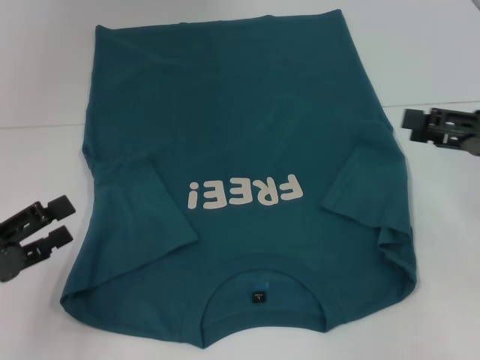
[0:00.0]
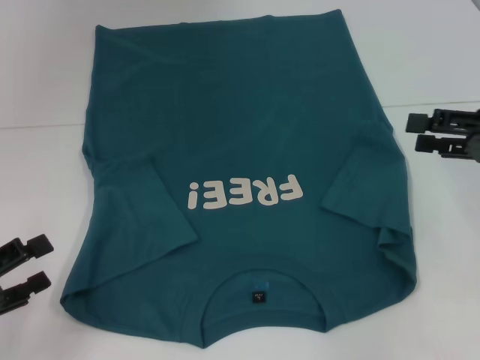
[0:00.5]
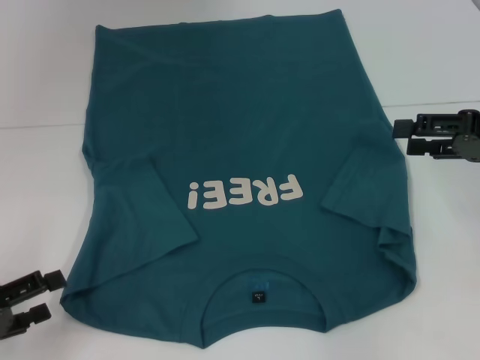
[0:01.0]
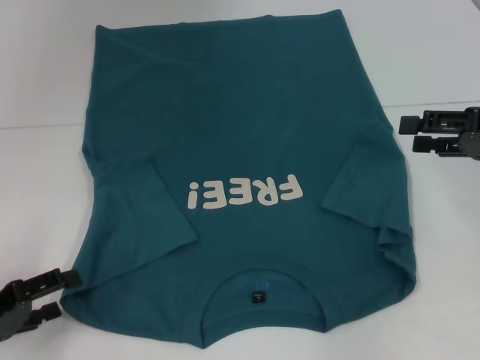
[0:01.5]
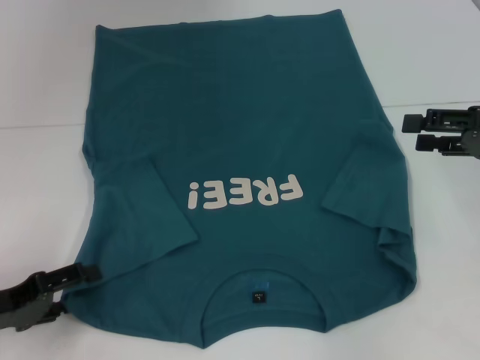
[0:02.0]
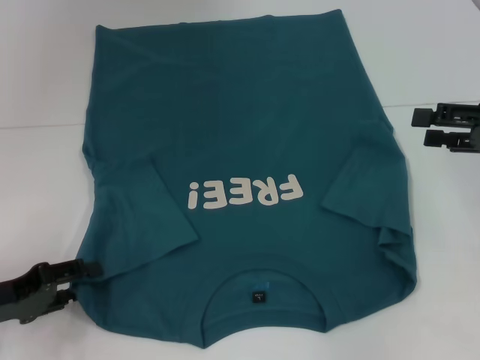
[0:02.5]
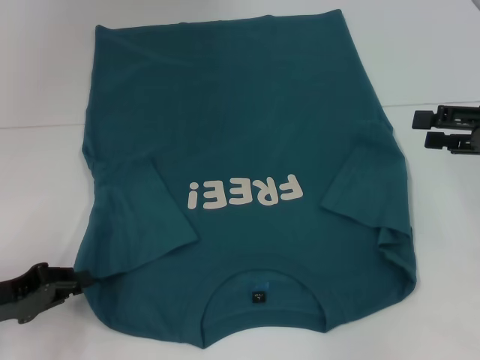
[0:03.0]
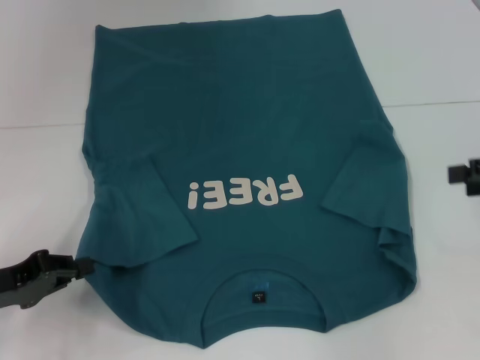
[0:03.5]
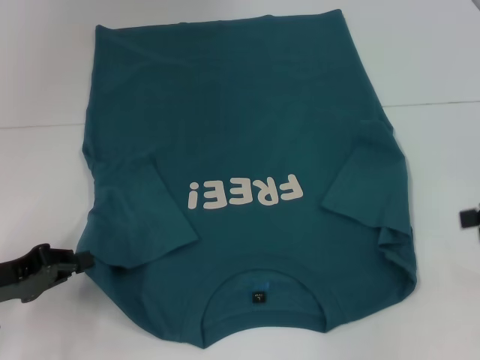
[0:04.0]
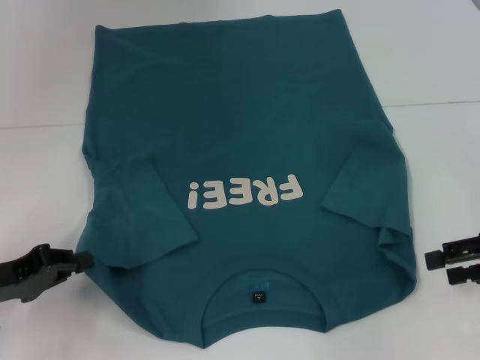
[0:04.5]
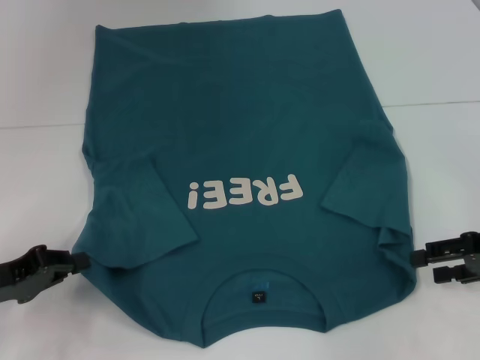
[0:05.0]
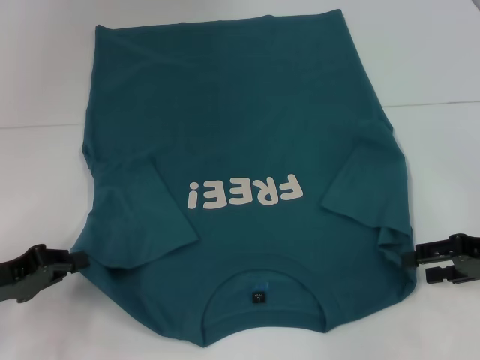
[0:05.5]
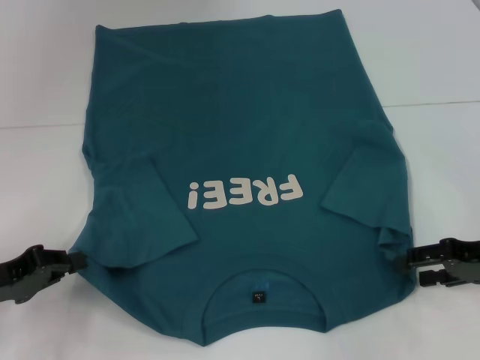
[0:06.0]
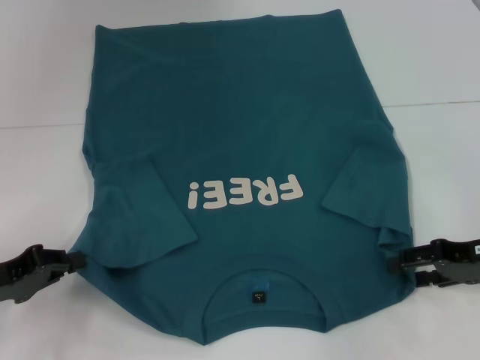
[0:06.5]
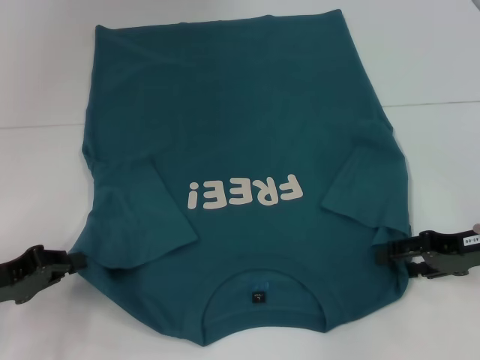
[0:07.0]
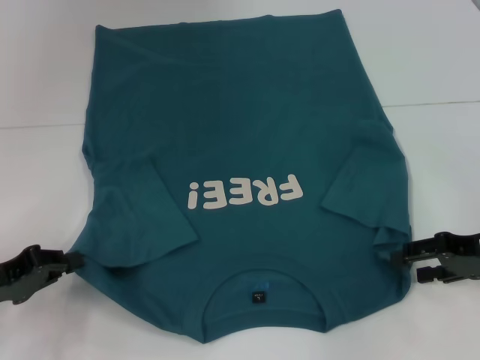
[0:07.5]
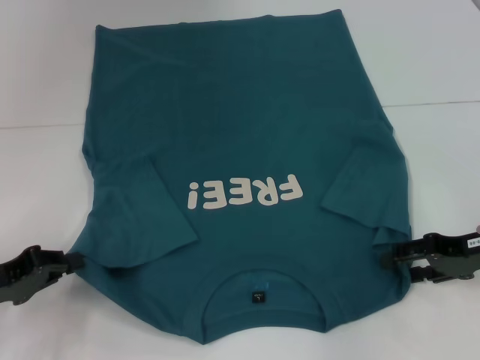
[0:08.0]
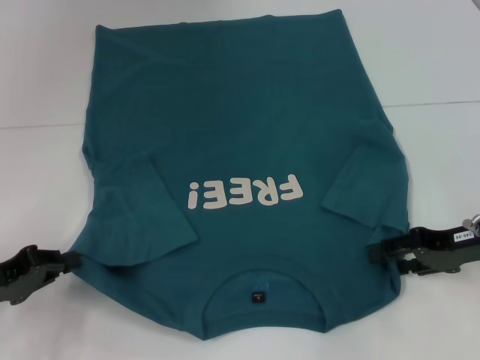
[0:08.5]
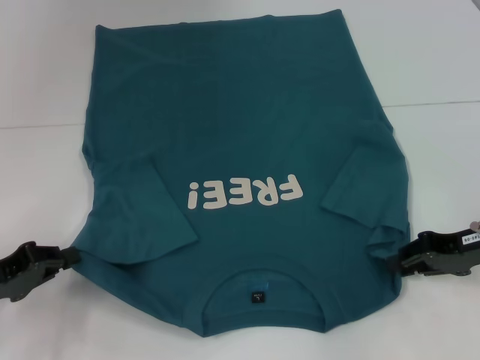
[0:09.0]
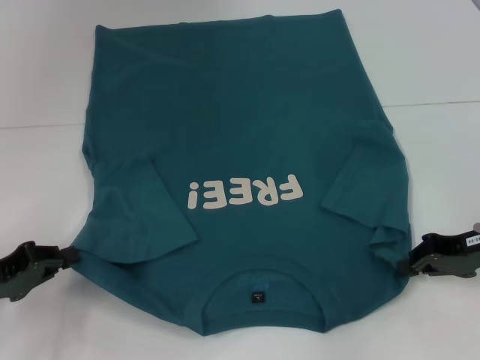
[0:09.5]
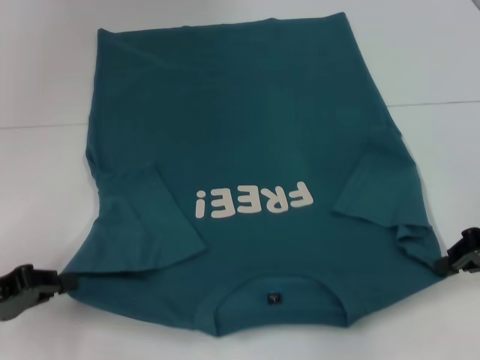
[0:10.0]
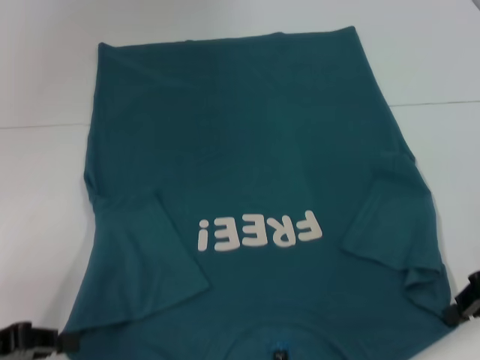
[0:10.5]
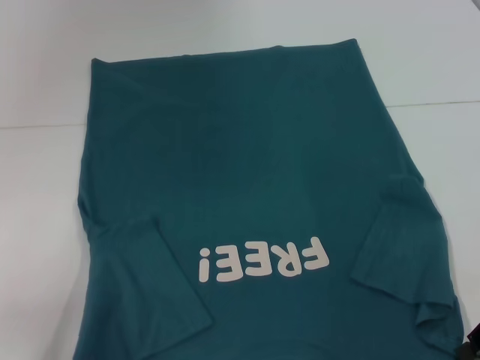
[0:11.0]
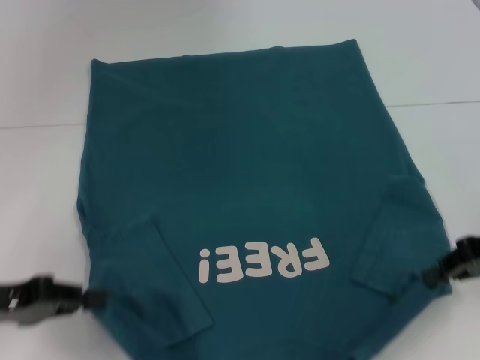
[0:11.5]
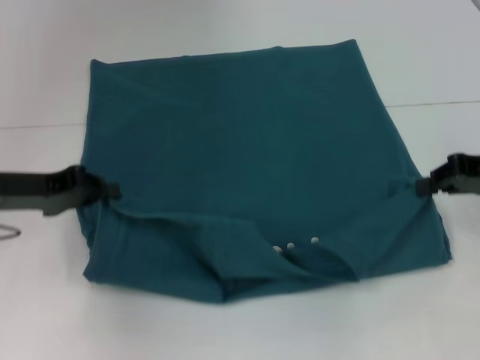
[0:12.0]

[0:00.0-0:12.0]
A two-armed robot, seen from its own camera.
Step, 0:00.0 to 0:03.0: Grab the bottom left corner with your left hand.
Step, 0:03.5 to 0:09.0: Grab the bottom right corner with your right hand.
0:02.0 to 0:04.0: The left gripper closes; the right gripper ends up roughly 5 cm from where it was.
0:04.0 to 0:06.0: The right gripper shifts approximately 10 cm downward and to the left.
0:06.0 to 0:08.0: There are only small adjustments of the grippers.
0:08.0 to 0:10.0: The right gripper closes up.
0:10.0 to 0:12.0: The left gripper moves forward and upward, roughly 10 cm.

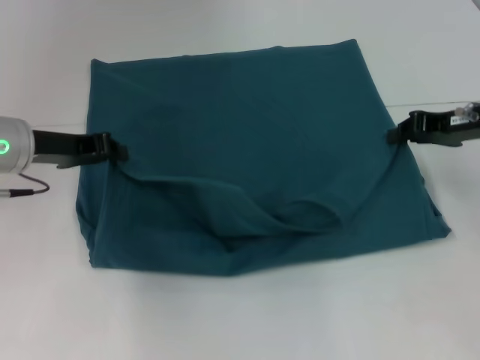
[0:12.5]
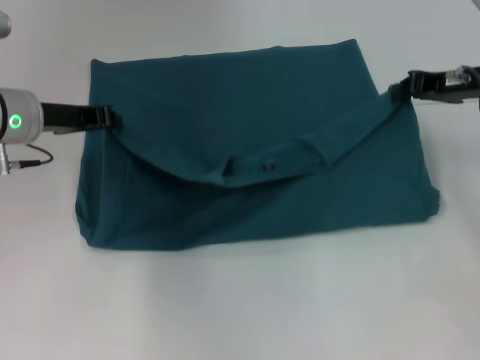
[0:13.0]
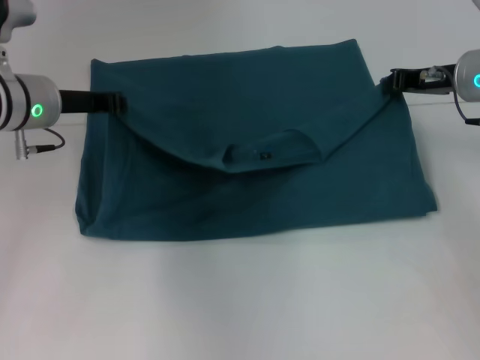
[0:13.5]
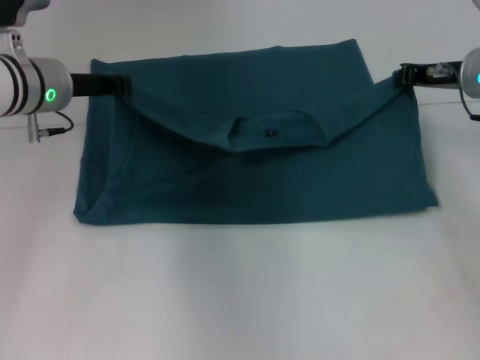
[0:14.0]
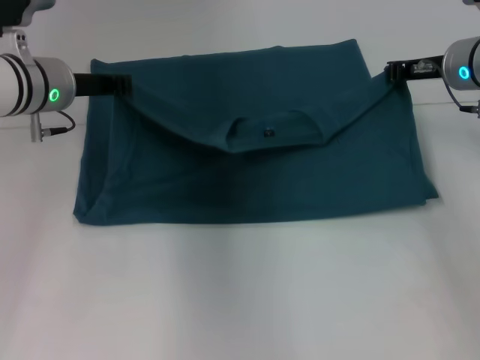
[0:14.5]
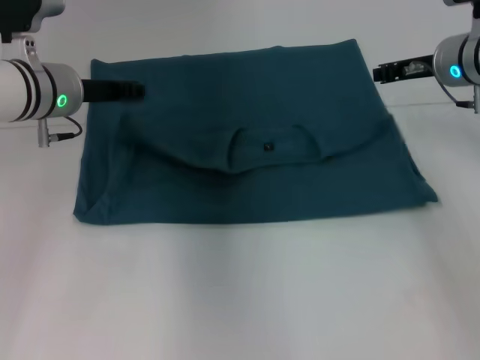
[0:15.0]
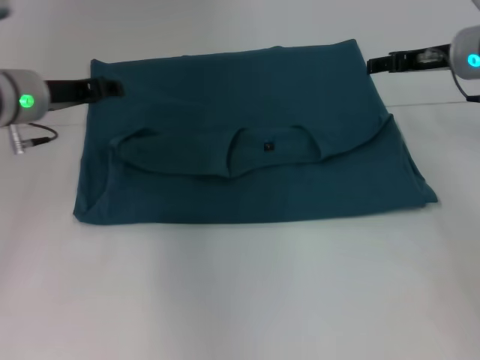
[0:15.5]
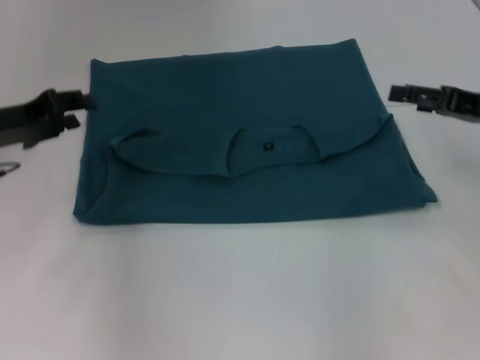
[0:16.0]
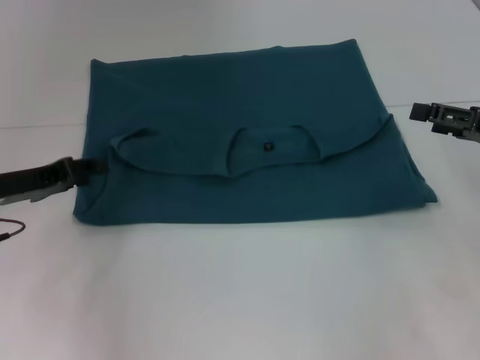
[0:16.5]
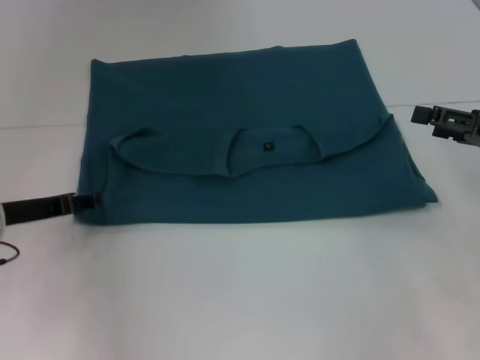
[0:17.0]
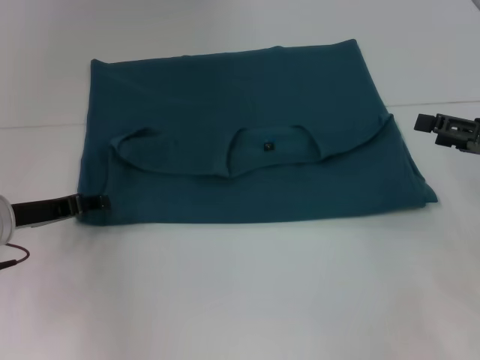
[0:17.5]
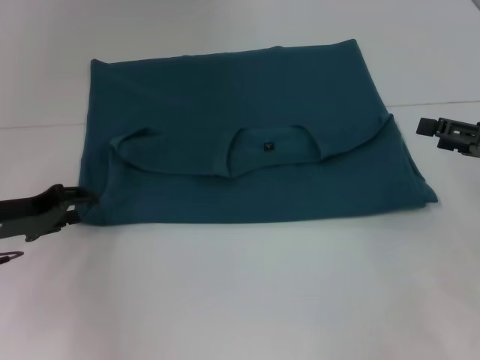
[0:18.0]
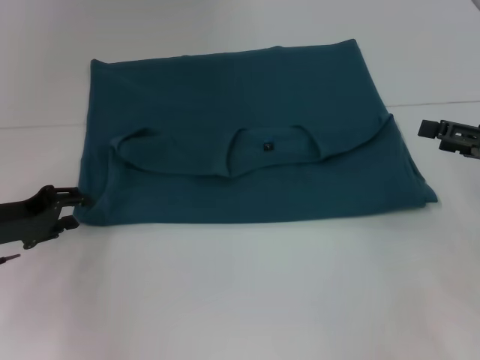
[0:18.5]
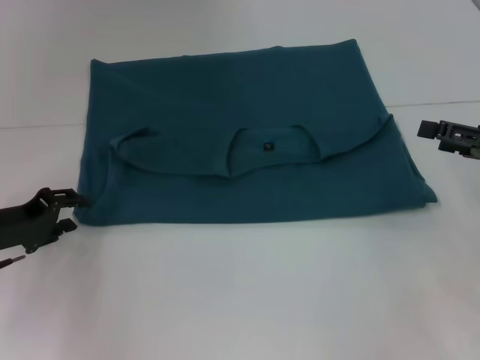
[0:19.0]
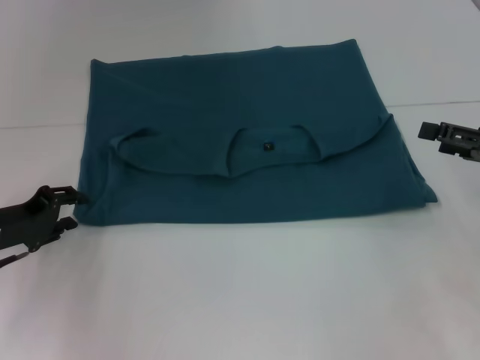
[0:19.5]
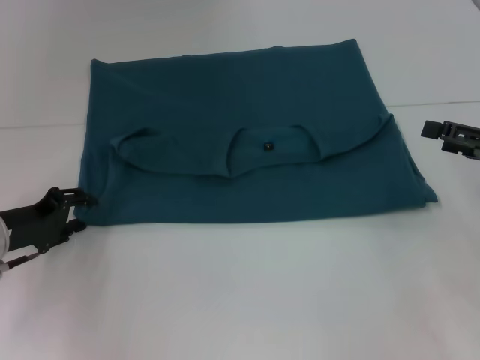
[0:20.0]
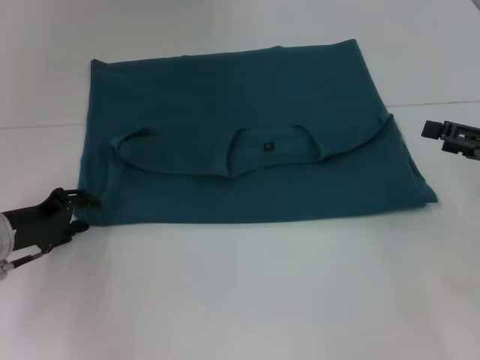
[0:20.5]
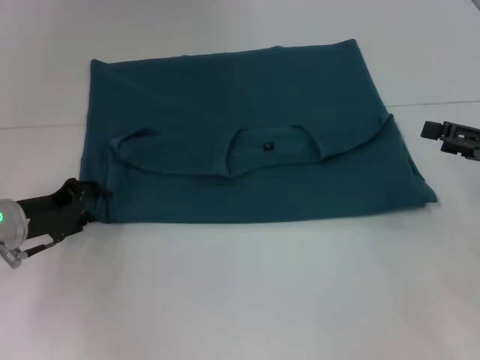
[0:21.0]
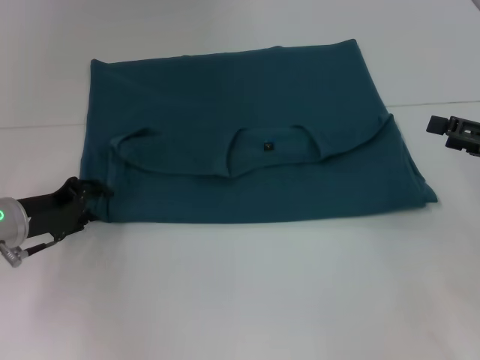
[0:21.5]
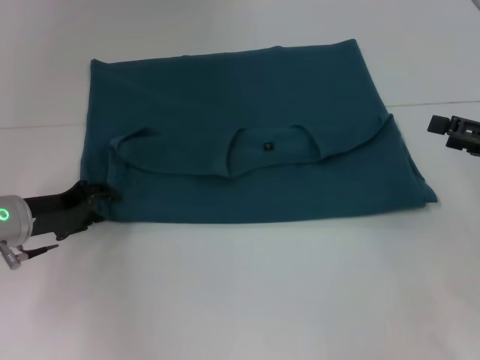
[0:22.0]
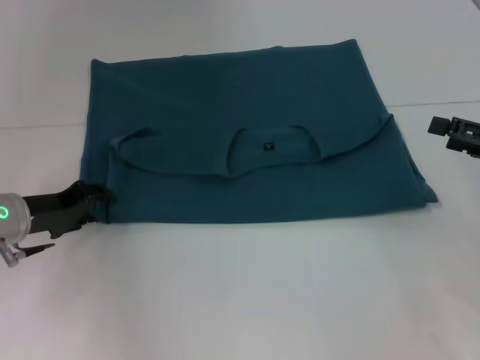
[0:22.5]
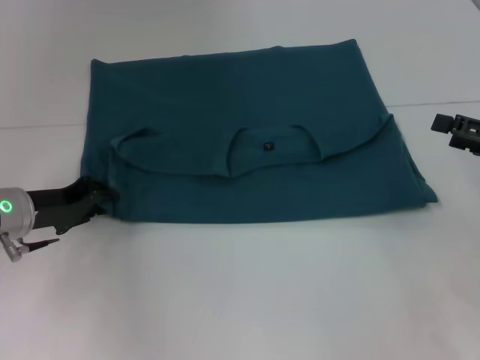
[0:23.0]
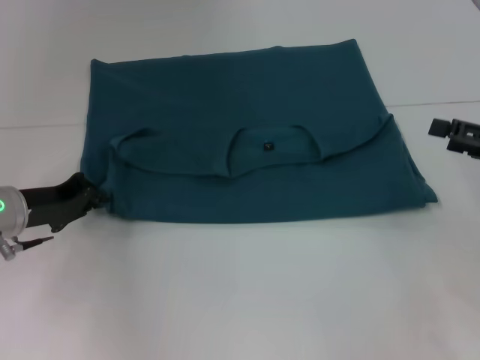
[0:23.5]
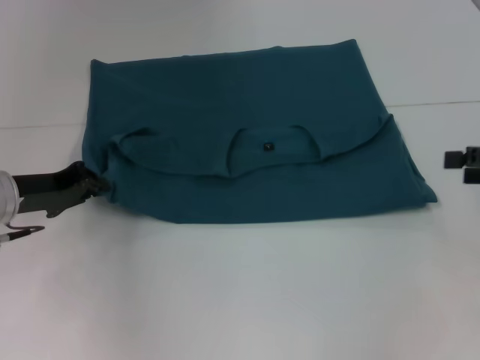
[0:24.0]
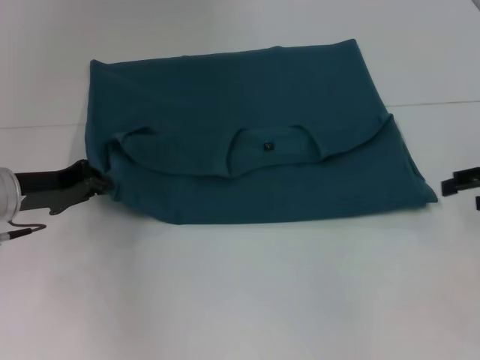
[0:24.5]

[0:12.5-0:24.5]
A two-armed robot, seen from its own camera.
Step, 0:12.5 to 0:15.0: Fold the clothes to the left.
Step, 0:12.5 to 0:15.0: Fold the clothes to the right.
0:12.5 to 0:14.5: The two grippers go some 5 cm forward.
0:14.5 to 0:16.5: The left gripper heads backward, to the left and downward, covering roughly 15 cm, and opens its fingers, while the right gripper heads backward and to the right, covering roughly 15 cm, and opens up.
0:18.5 to 0:22.5: The grippers stay close to where they were, moving slightly.
0:22.5 to 0:24.5: The left gripper closes its fingers.

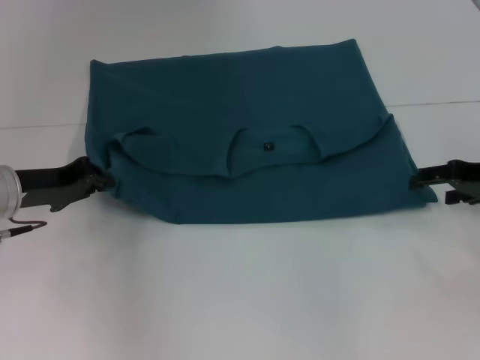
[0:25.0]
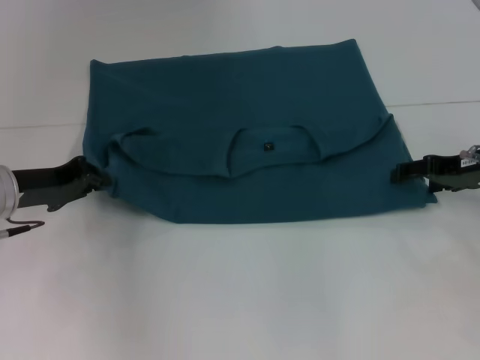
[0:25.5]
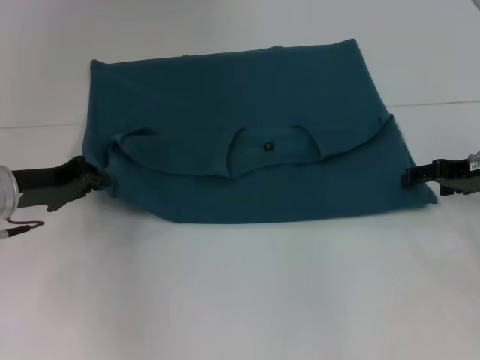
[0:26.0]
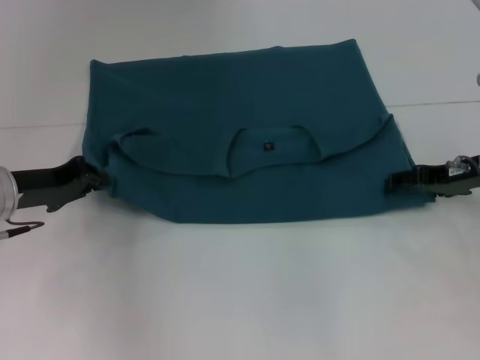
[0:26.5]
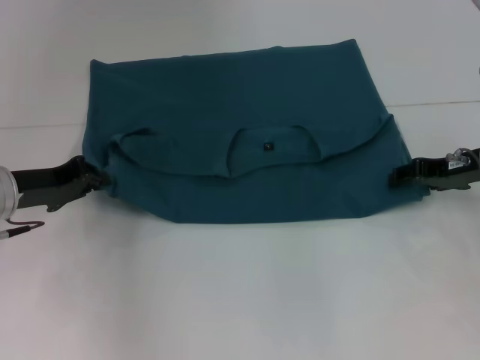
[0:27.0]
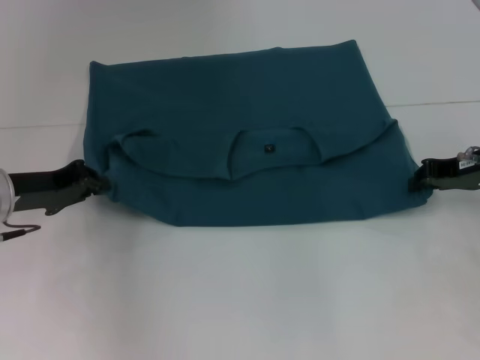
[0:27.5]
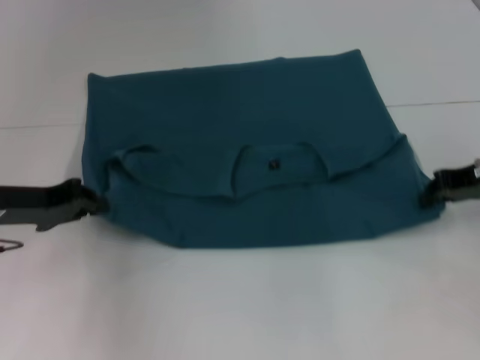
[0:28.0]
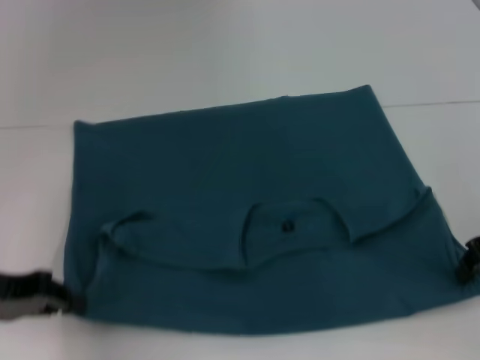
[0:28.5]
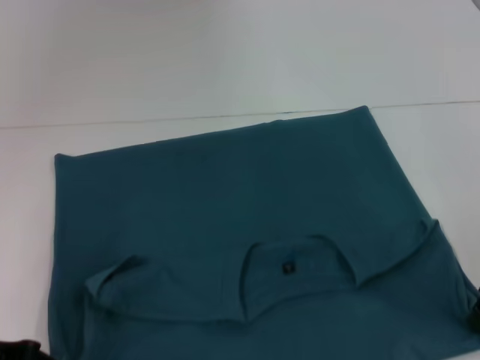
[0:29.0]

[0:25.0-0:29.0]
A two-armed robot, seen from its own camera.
Step, 0:25.0 to 0:29.0: Pull the clothes with your left hand.
Step, 0:25.0 to 0:29.0: Pull the clothes with your right hand.
0:25.0 to 0:27.0: The grippers move only a little.
0:27.0 to 0:29.0: The right gripper moves backward, some 10 cm, and closes; the left gripper moves backward, about 10 cm.
